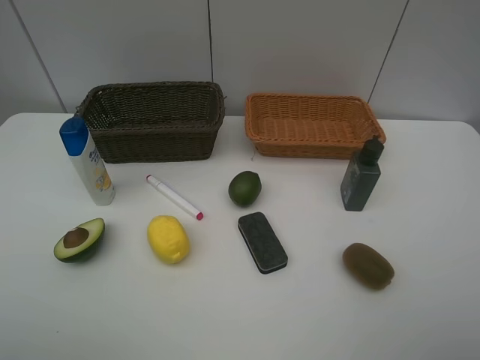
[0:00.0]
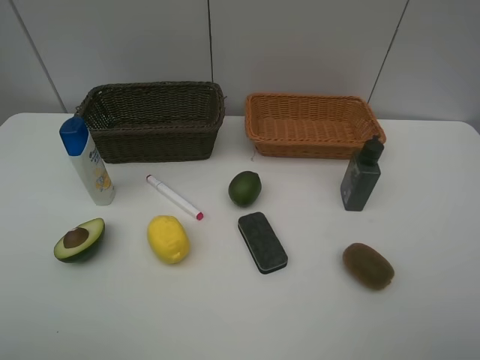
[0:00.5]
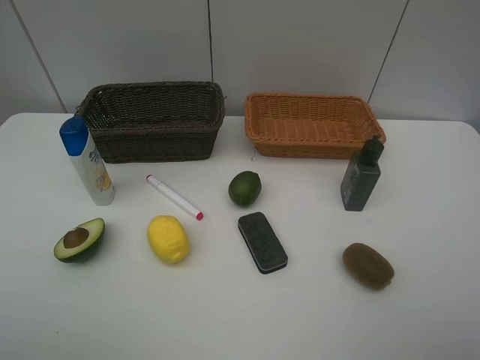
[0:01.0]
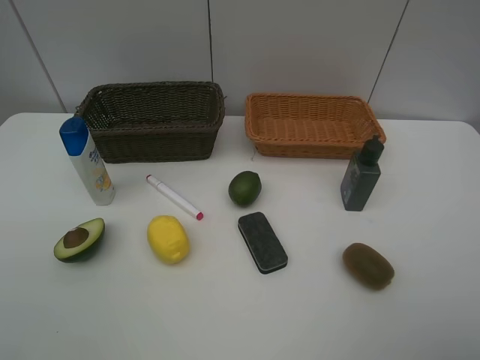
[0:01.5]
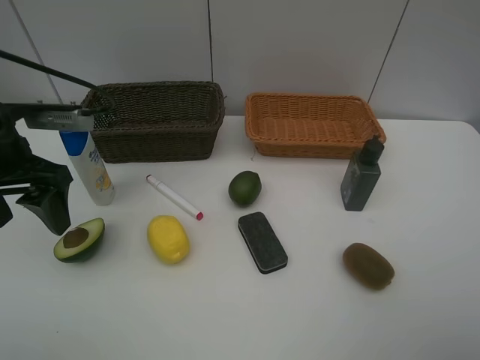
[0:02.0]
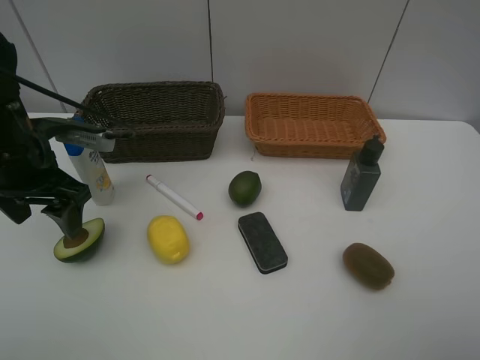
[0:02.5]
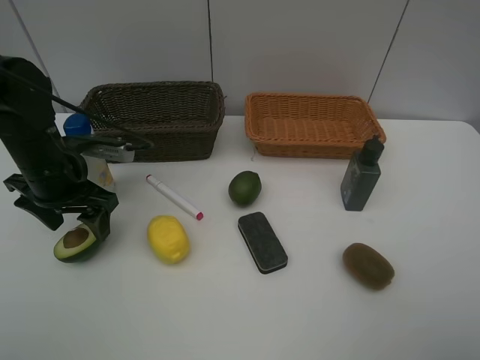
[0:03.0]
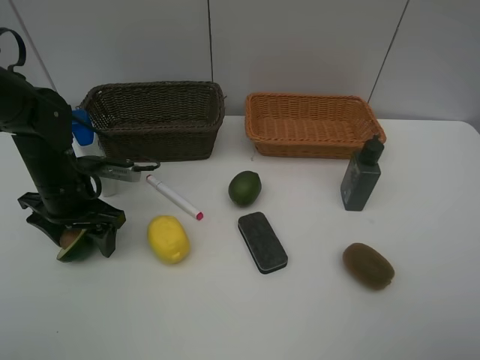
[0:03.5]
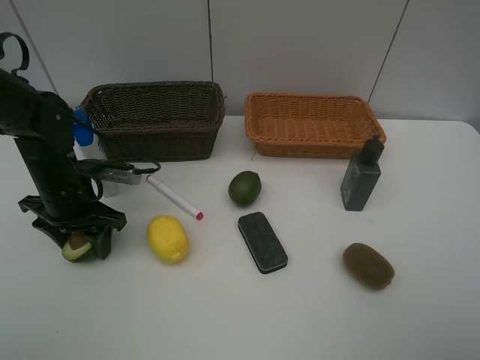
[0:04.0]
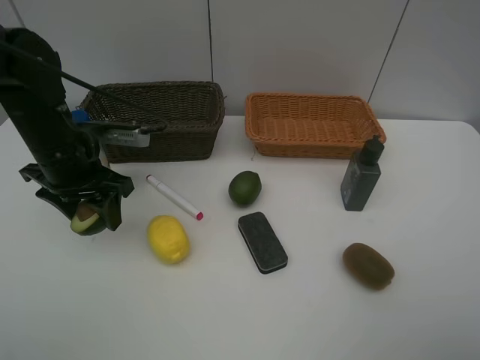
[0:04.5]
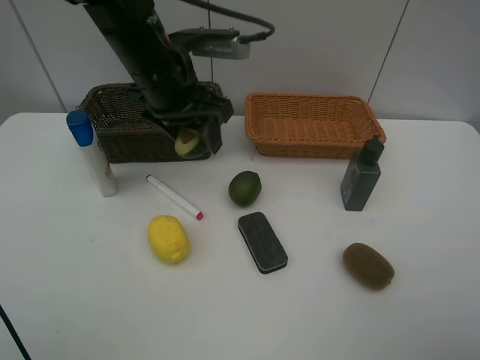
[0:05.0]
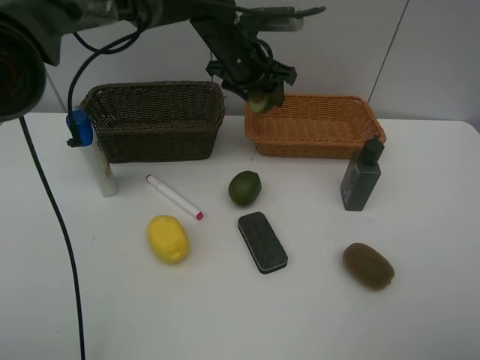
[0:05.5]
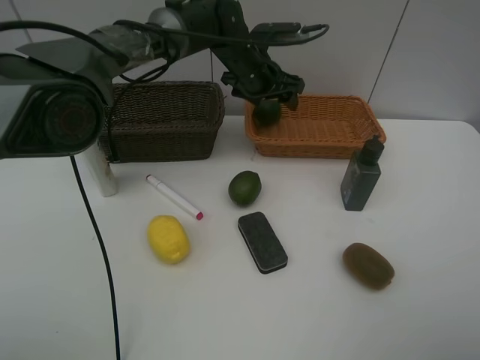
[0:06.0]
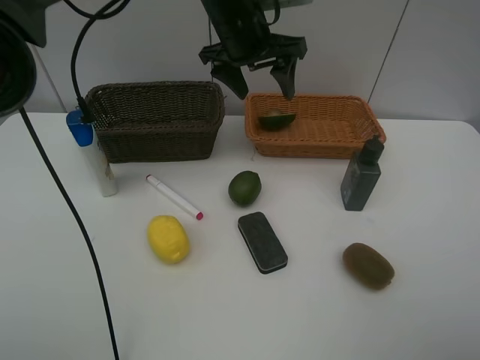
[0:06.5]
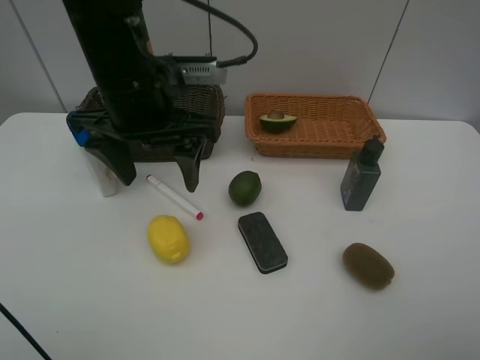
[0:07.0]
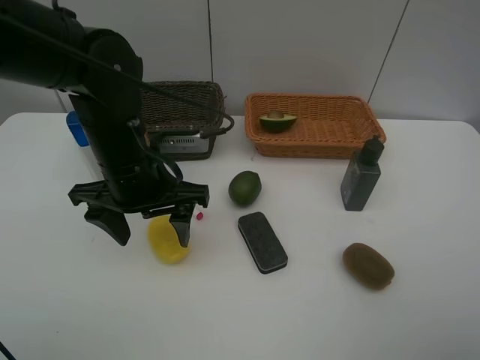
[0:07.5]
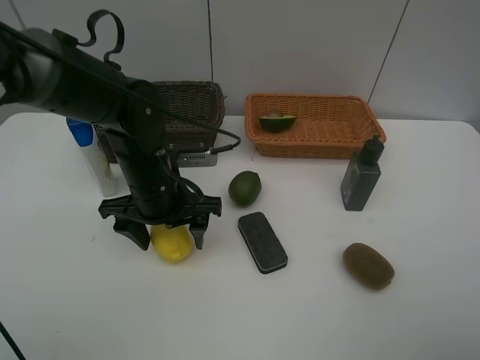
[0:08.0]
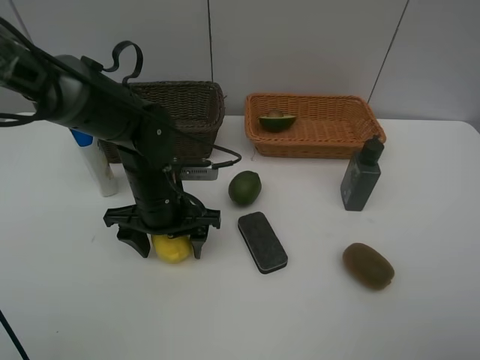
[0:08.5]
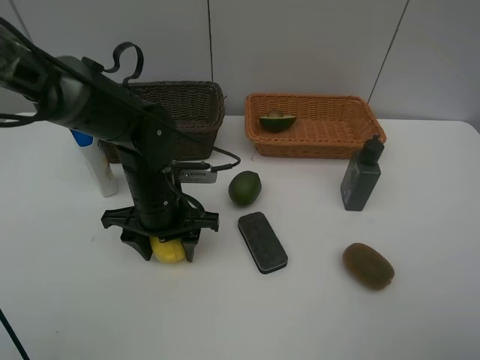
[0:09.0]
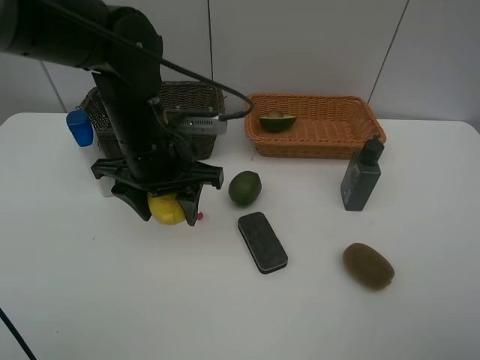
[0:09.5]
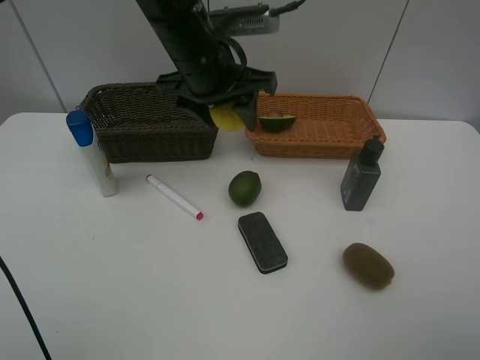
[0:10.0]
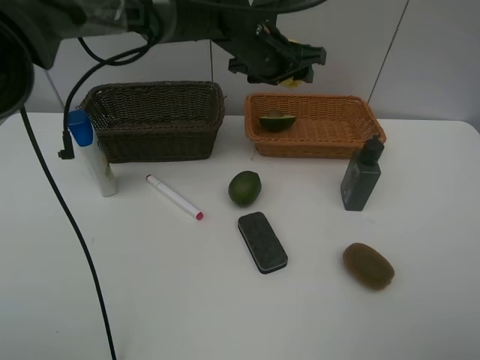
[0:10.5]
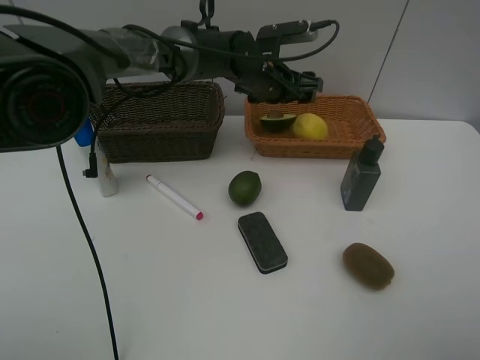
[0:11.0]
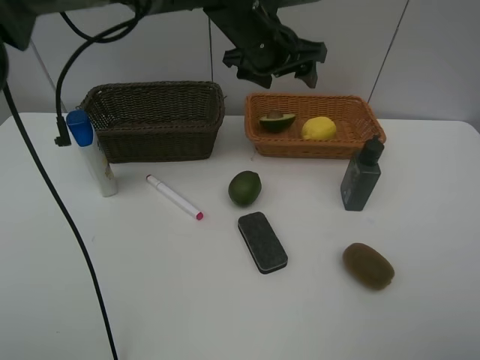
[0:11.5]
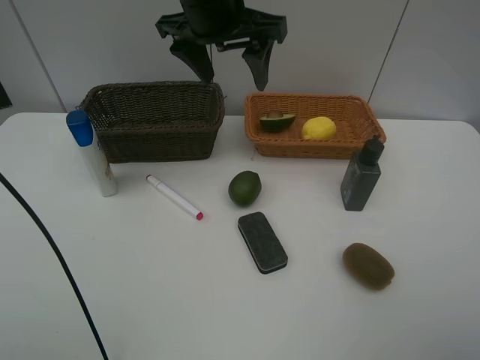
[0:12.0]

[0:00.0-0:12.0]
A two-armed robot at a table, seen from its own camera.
Task of the whole recording: Place multiple objects separately in different baskets.
Step, 0:00.0 to 0:04.0: Pick up the avocado with left gripper.
Step, 0:04.5 to 0:06.0: Place the avocado in the light basket with left gripper.
Step, 0:06.5 to 0:09.0: Pick up the lemon with left gripper.
Step, 0:09.5 to 0:11.0: Place the lemon in the light basket with left gripper.
0:00.0 to 0:02.0: The left gripper is displaced forward by some 25 cm.
0:02.0 to 0:04.0: The left gripper shifts approximately 10 cm downward.
0:04.0 to 0:06.0: The left gripper travels to the right and forward by some 30 cm.
0:06.0 to 0:08.0: The left gripper goes about 25 cm backward and to the left.
0:08.0 to 0:10.0: The left gripper moves upward, forward and to the right, roughly 15 cm.
0:10.0 to 0:12.0: The left gripper moves upward, approximately 5 cm.

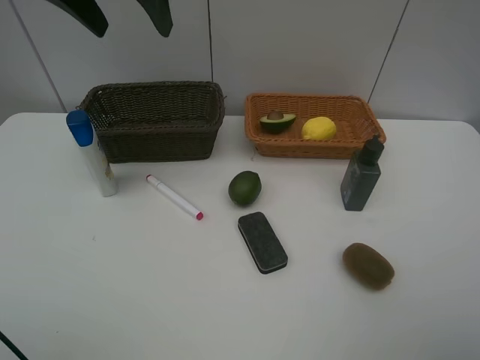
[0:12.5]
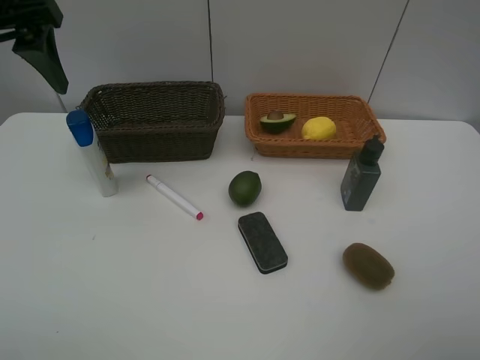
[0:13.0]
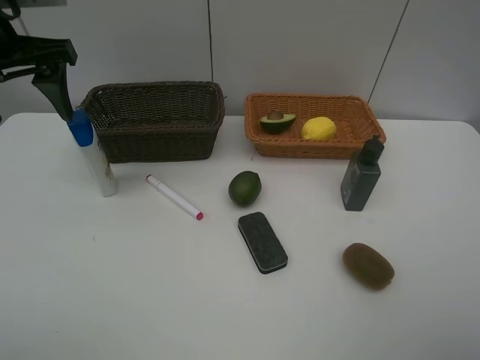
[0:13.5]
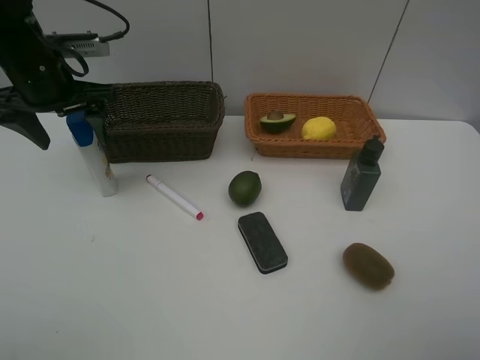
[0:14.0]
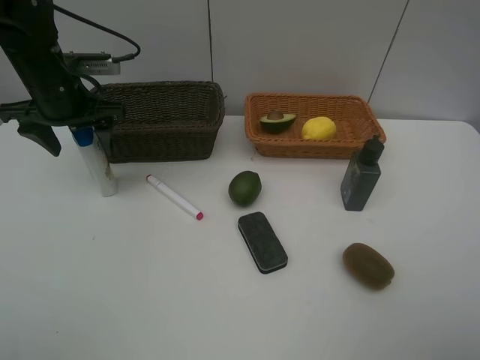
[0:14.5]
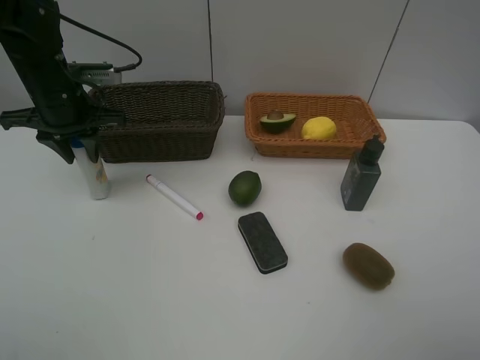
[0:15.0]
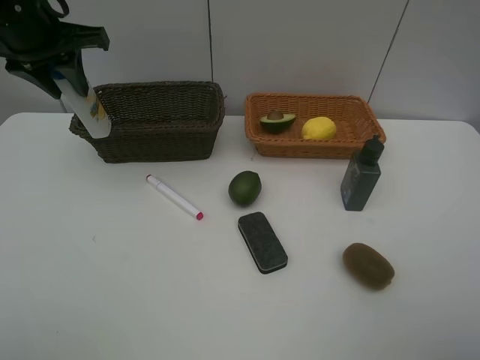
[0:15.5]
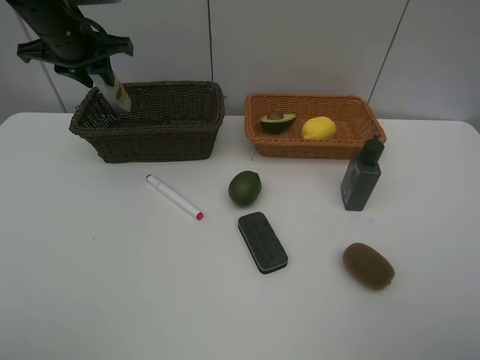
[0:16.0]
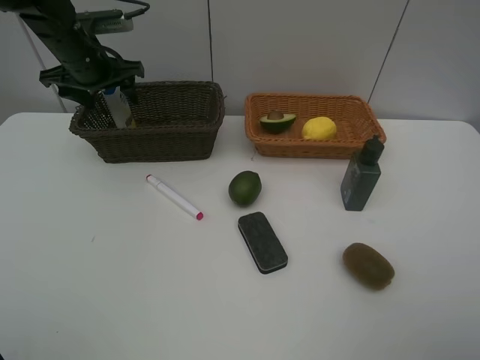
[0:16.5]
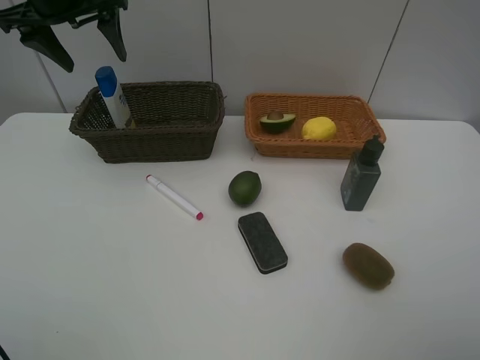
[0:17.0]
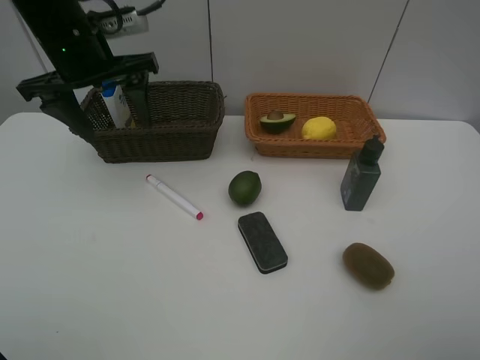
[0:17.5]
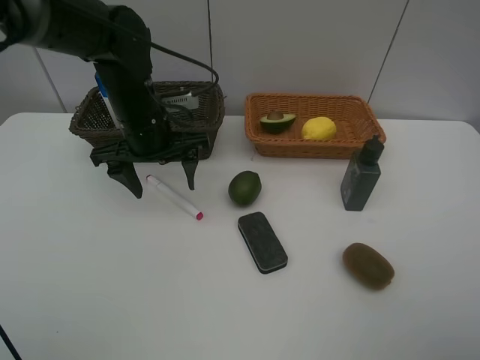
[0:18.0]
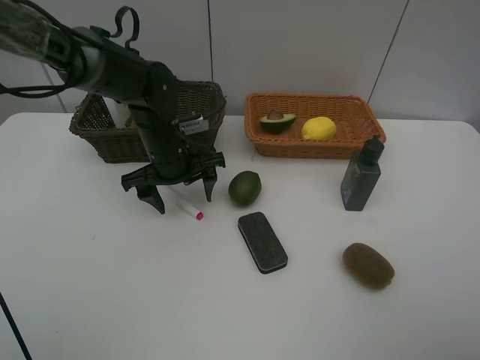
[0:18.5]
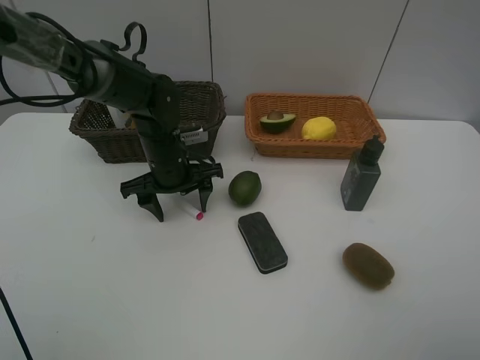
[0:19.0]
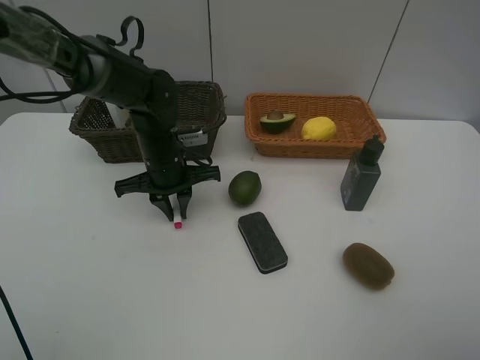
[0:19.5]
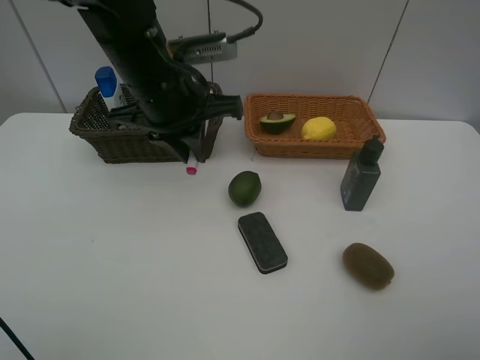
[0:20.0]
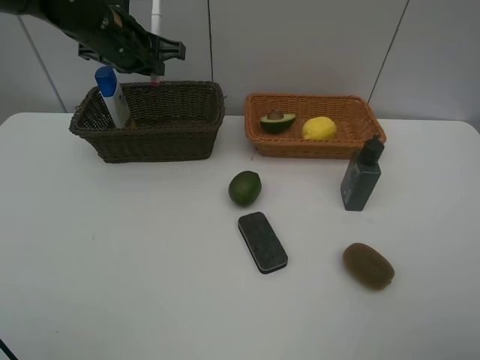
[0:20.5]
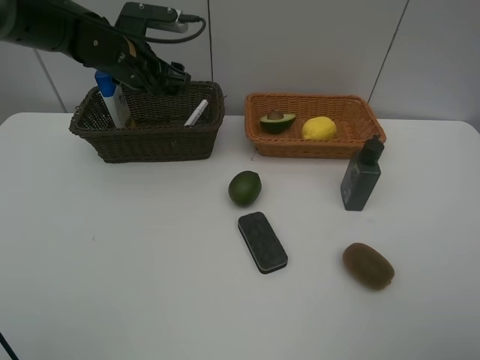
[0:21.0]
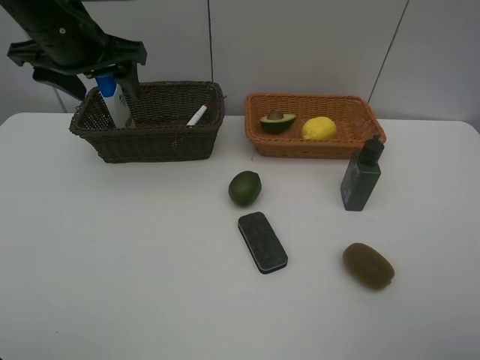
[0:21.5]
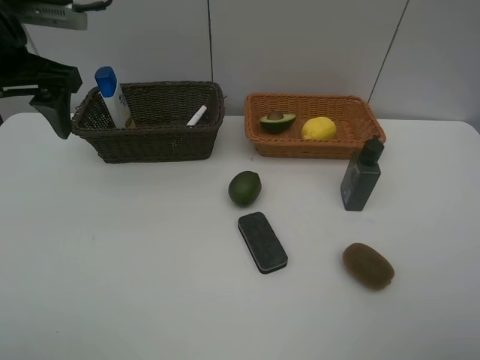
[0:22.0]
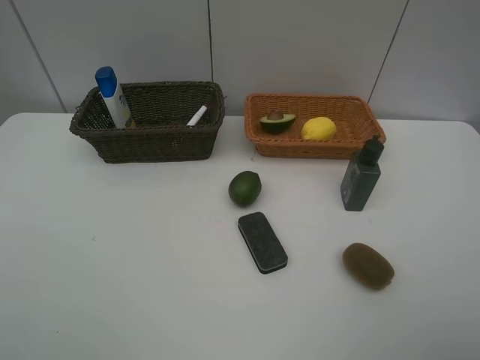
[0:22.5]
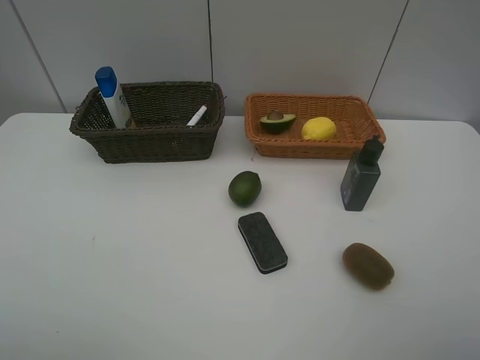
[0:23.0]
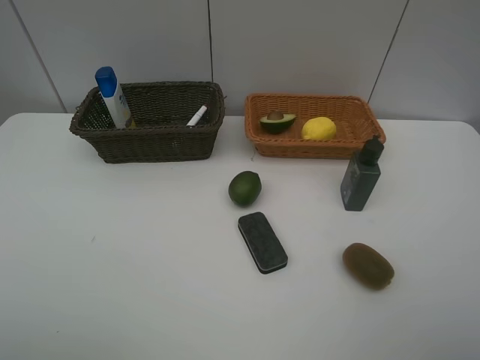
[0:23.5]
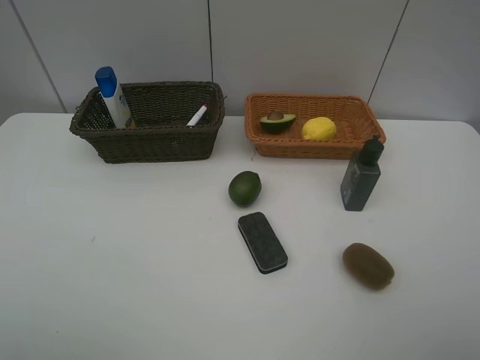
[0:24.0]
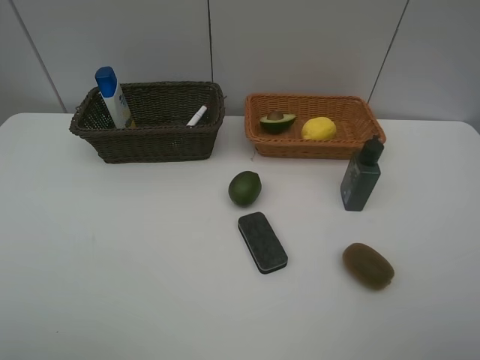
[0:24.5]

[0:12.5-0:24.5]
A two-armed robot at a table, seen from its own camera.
Task of the whole recording: Place multiple objects separately in different baskets.
Step, 0:12.5 to 0:15.0: Pick up the shampoo with left gripper.
Step, 0:15.5 to 0:16.5: Place the shampoo in the dark basket with left gripper.
Step, 0:17.0 to 0:19.5: Pick up the red marker with left gripper.
Step, 0:20.0 to 0:21.0: Place the red marker in the dark basket with left gripper.
0:12.5 to 0:14.5: The left gripper shifts some 20 cm downward and to the left.
0:14.5 to 0:16.5: The left gripper moves forward, roughly 5 cm, reaches approximately 10 cm upward, then returns, and closes, then opens again.
0:16.5 to 0:18.5: The left gripper travels to the right, downward and backward by roughly 20 cm.
0:18.5 to 0:20.5: The left gripper travels upward, to the left and forward by approximately 15 cm, and closes its fingers.
0:20.5 to 0:22.5: The left gripper shifts approximately 35 cm backward and to the left, and opens.

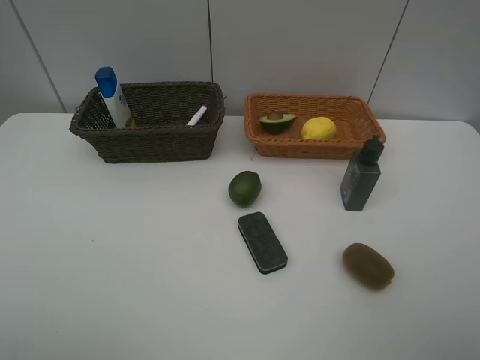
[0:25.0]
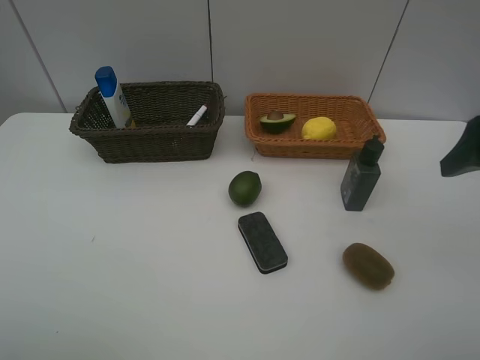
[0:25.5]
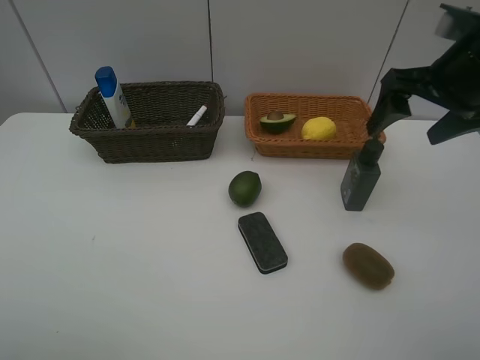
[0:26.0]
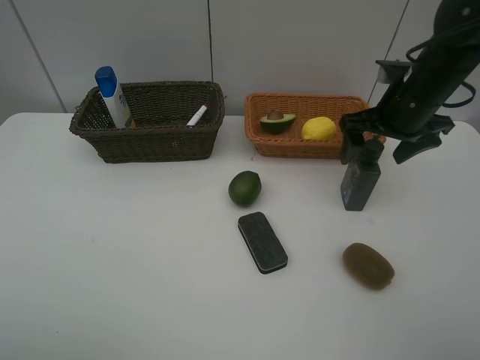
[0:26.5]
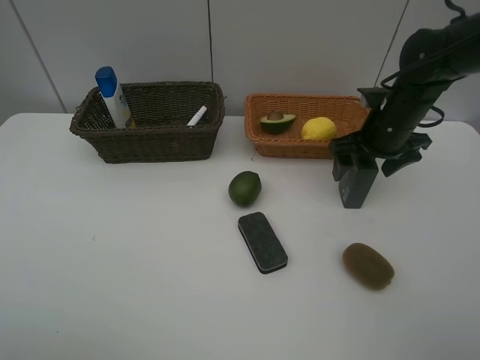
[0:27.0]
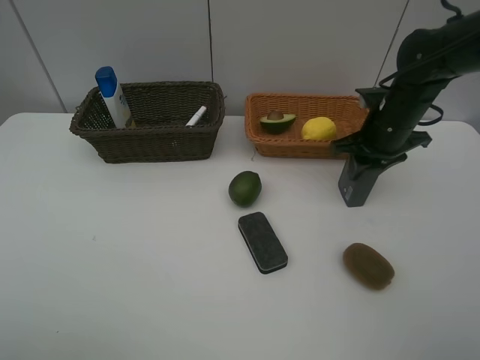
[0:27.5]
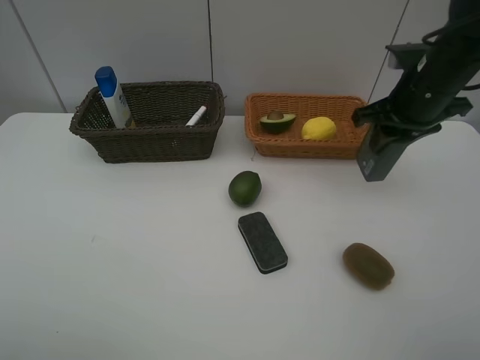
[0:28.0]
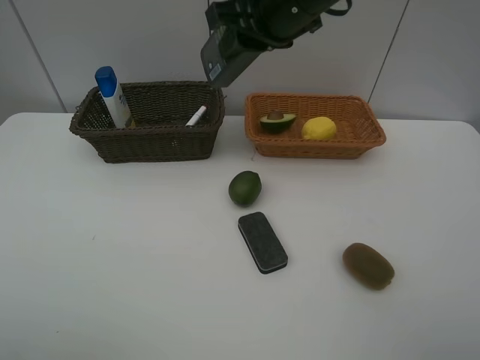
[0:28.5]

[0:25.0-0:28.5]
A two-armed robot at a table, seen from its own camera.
Task of the whole recording: Place multiple objects separately in different baskets.
Step, 0:25.0 to 0:28.0: Pick up the hard facial cleanser with right gripper.
0:25.0 to 0:27.0: The right gripper shifts some 30 cm forward.
0:27.0 to 0:28.5: The right gripper travels to the left and upward by some 25 cm, and closes.
